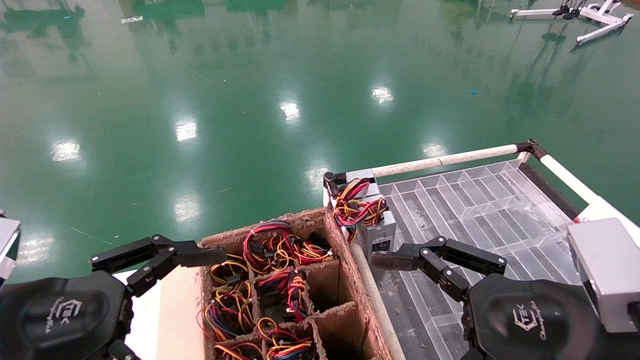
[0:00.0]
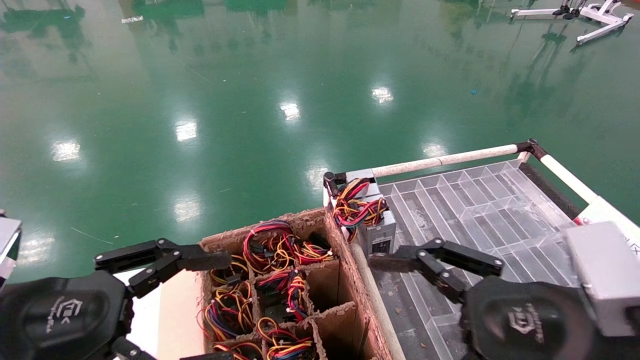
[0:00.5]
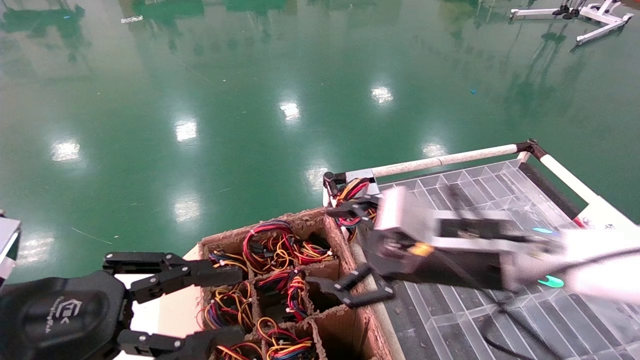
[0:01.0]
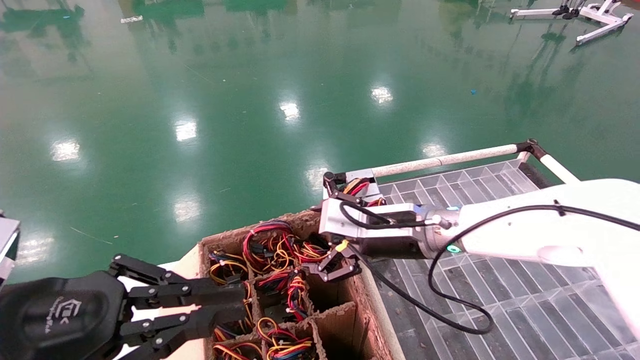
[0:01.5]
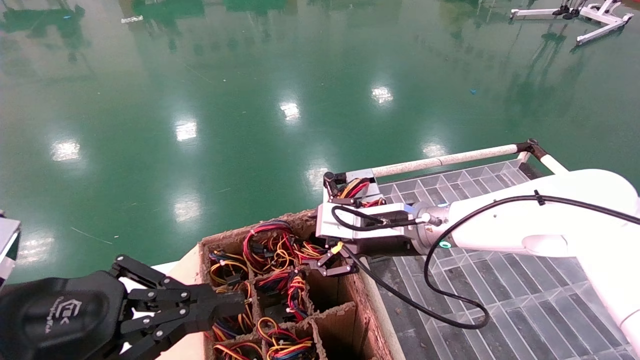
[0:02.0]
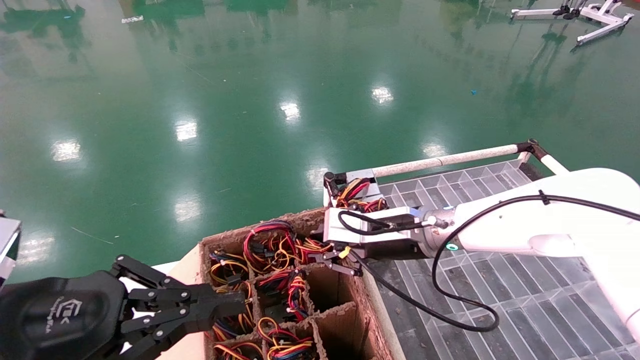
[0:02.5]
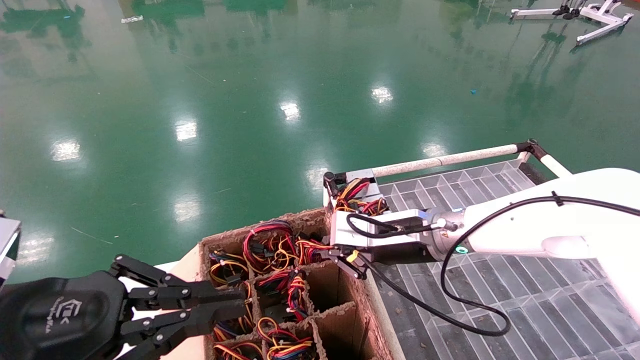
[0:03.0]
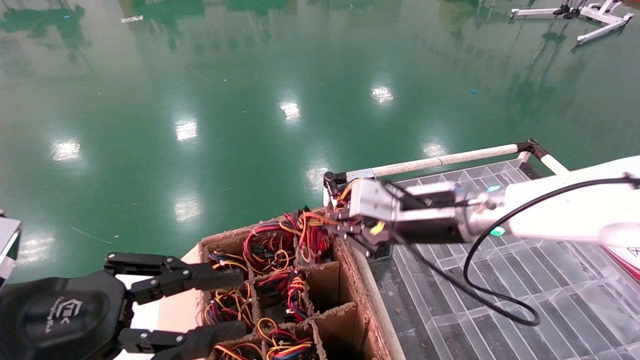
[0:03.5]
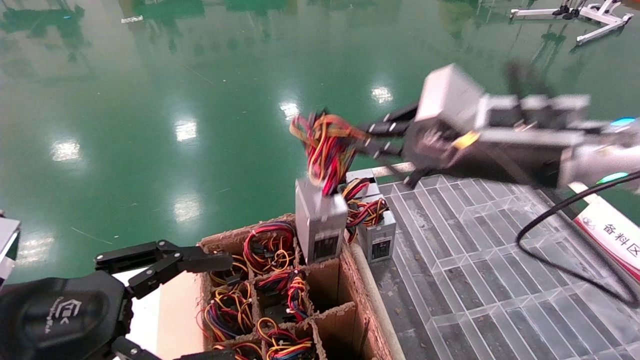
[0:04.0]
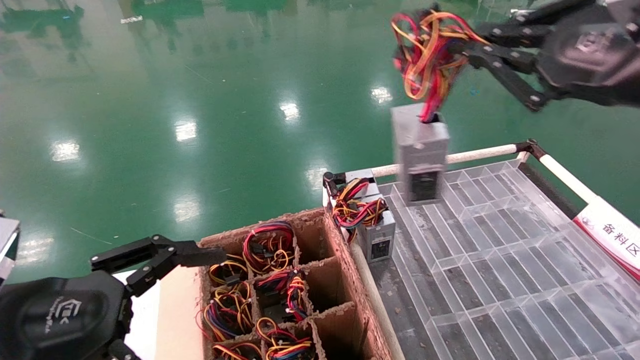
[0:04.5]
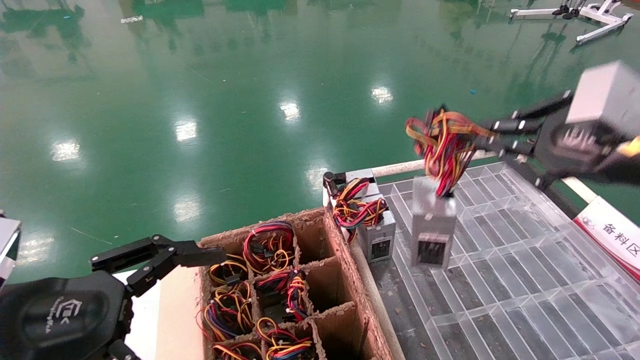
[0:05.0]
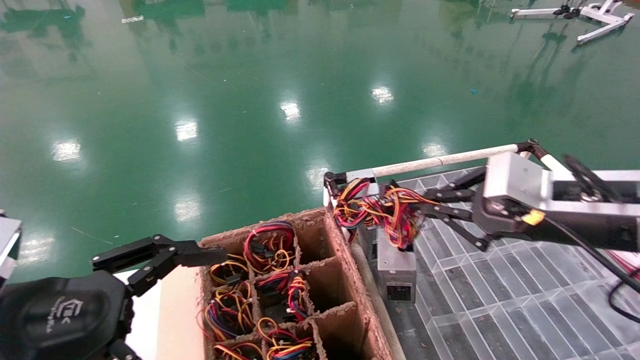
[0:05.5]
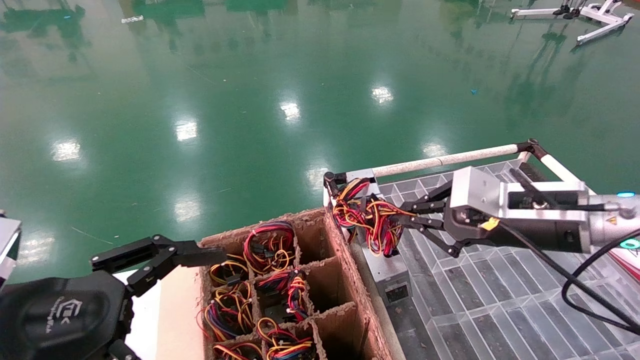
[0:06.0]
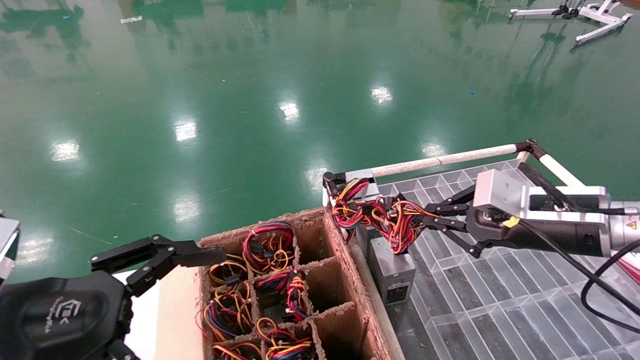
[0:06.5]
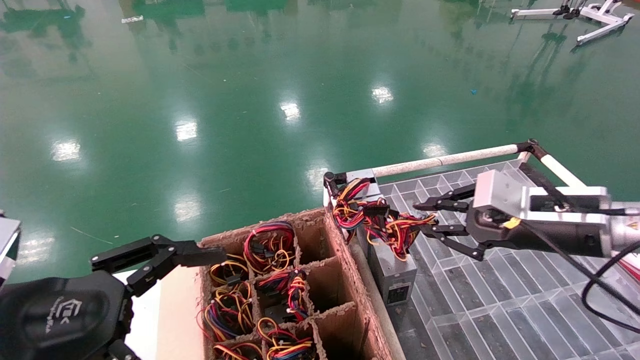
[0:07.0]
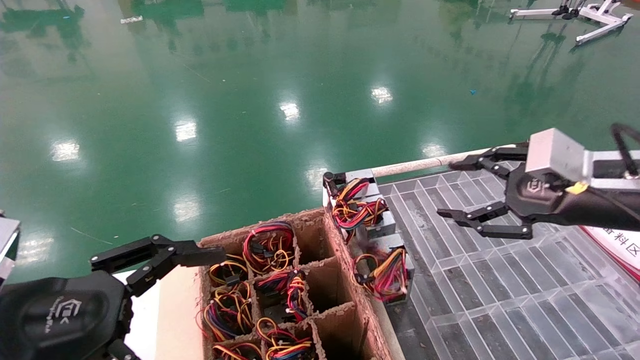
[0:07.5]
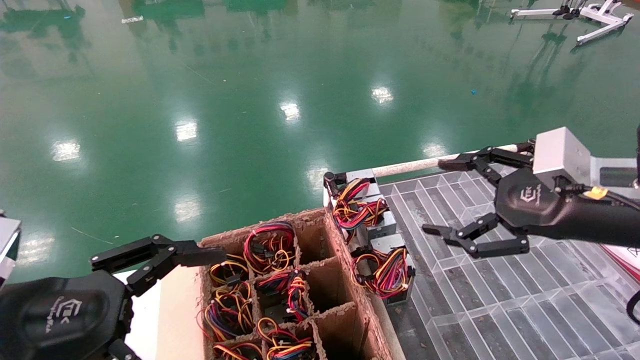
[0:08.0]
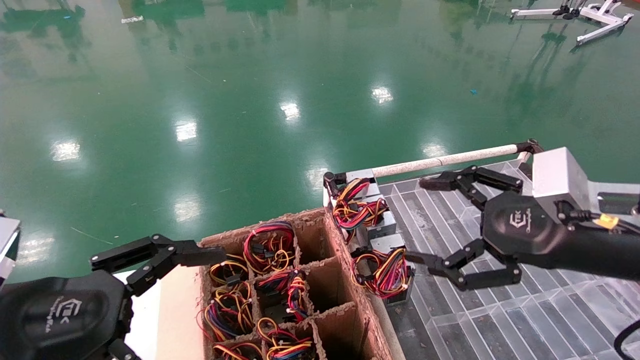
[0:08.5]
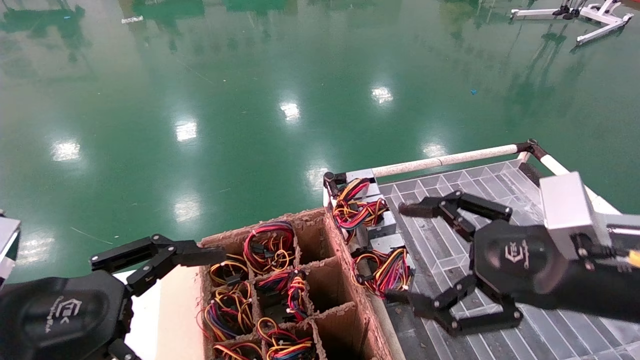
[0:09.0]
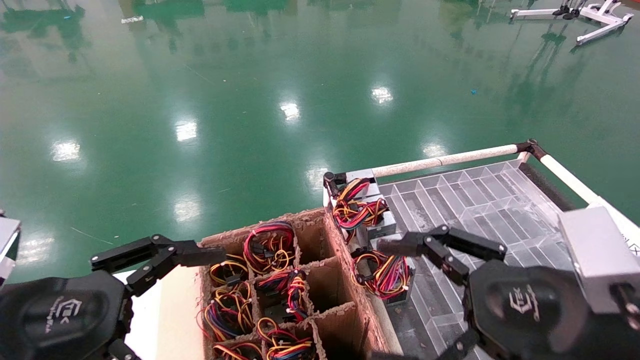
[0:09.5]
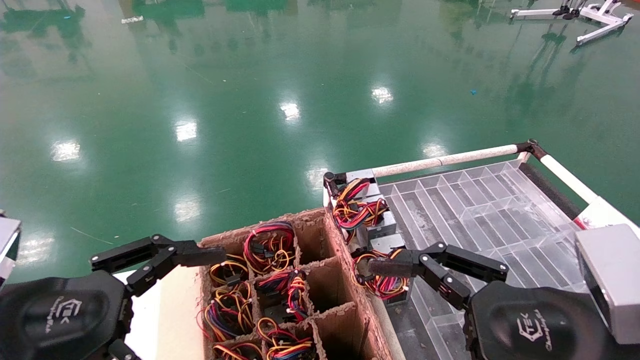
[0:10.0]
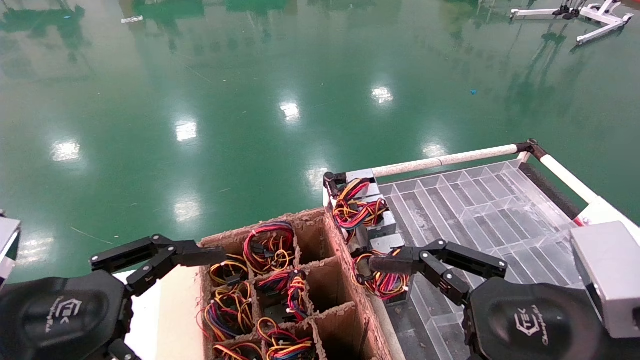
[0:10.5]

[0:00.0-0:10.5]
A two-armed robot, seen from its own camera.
Step, 0:02.0 to 0:03.0: Grab and lift the power supply from the large box.
Step, 0:03.5 to 0:06.5: Place the power supply on the operating table.
0:00.0 to 0:02.0: The right gripper travels forward and to the left by approximately 25 cm. The left gripper closes up.
0:02.0 to 0:04.0: The right gripper shifts about 20 cm upward, backward and to the right, and closes up; the left gripper opens its fingers.
0:04.0 to 0:06.5: The right gripper is displaced downward, to the right and forward by some 15 cm, while the left gripper opens its fingers.
0:06.5 to 0:08.5: The right gripper goes approximately 10 cm backward, and opens.
0:08.5 to 0:10.5: The right gripper is displaced backward and to the left by approximately 10 cm.
